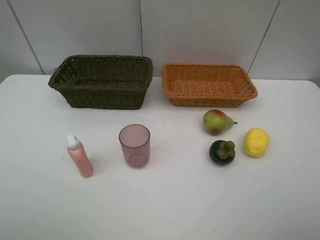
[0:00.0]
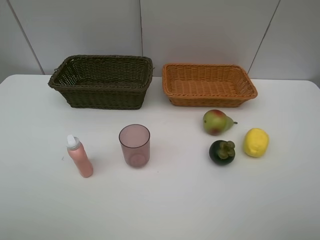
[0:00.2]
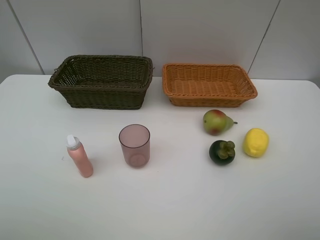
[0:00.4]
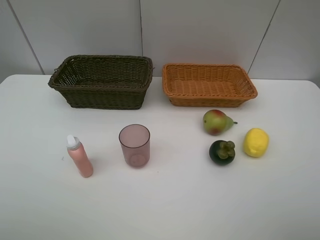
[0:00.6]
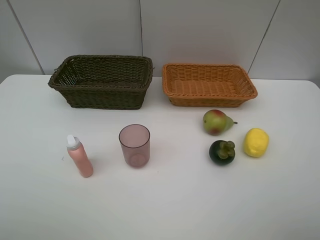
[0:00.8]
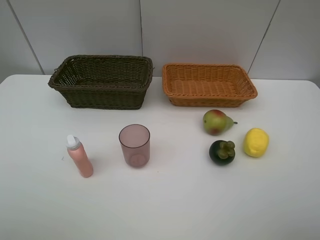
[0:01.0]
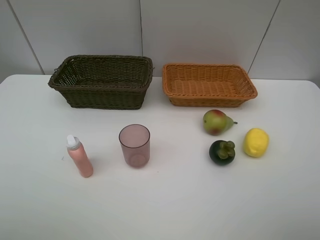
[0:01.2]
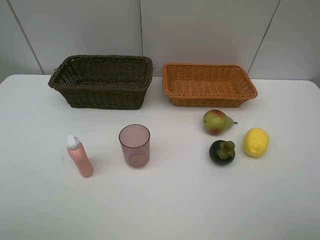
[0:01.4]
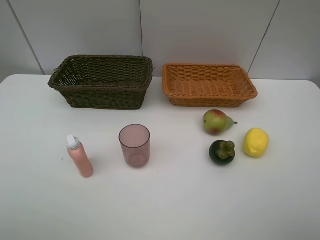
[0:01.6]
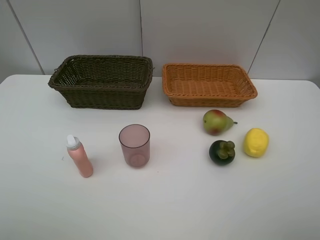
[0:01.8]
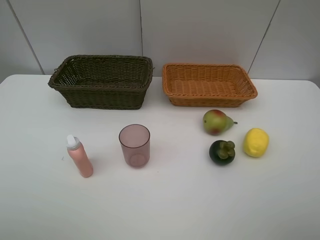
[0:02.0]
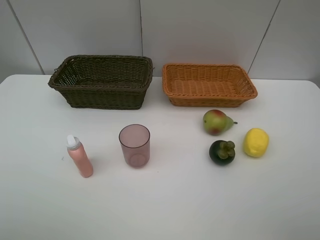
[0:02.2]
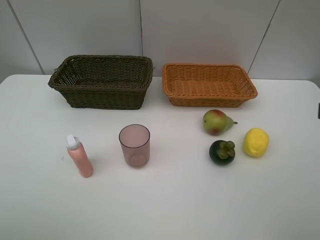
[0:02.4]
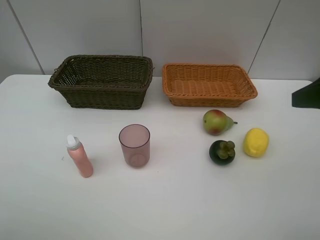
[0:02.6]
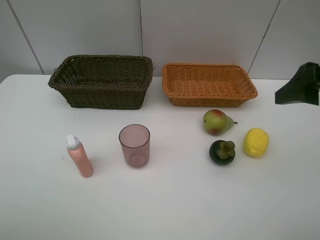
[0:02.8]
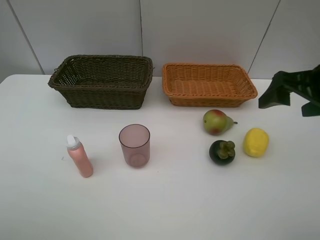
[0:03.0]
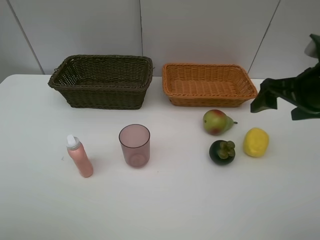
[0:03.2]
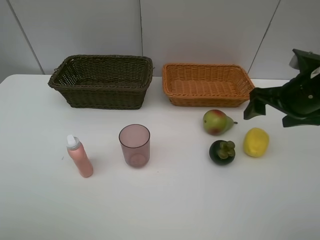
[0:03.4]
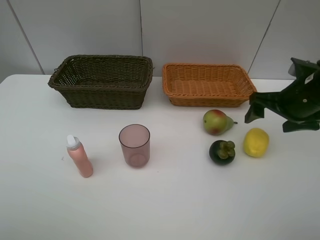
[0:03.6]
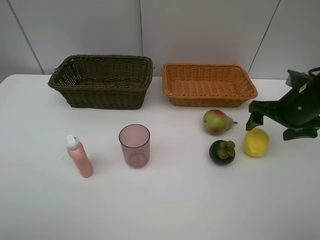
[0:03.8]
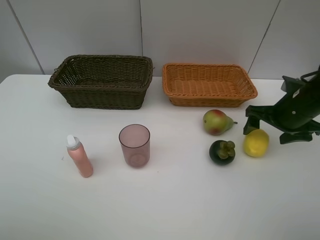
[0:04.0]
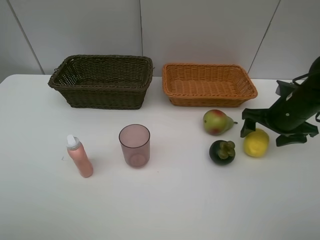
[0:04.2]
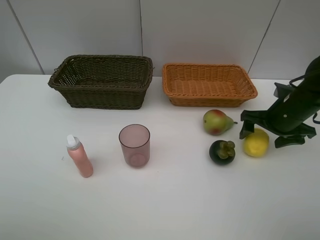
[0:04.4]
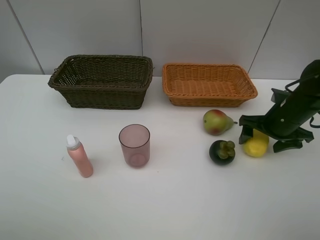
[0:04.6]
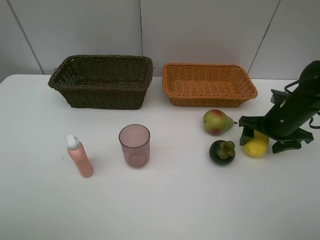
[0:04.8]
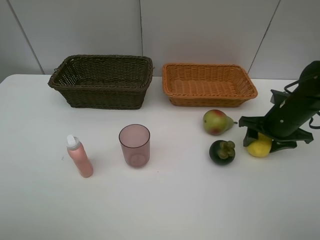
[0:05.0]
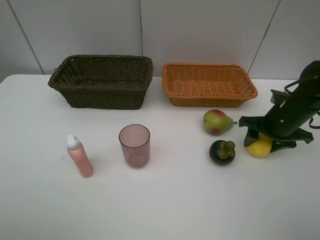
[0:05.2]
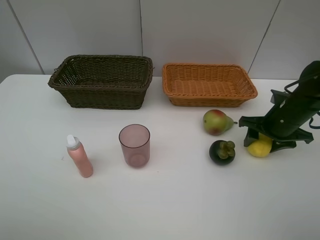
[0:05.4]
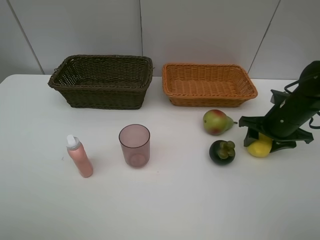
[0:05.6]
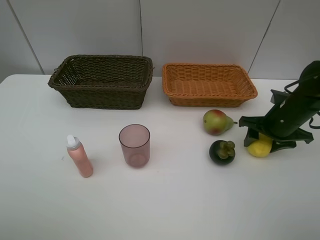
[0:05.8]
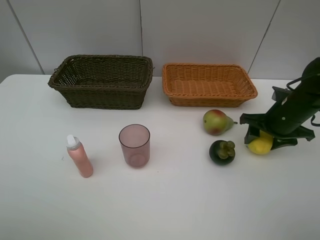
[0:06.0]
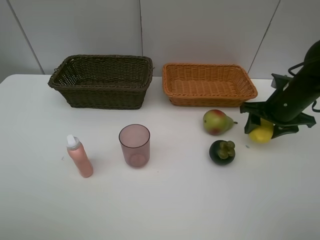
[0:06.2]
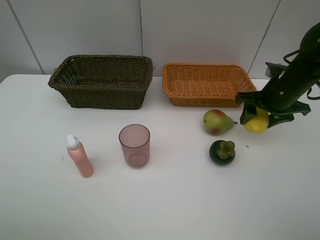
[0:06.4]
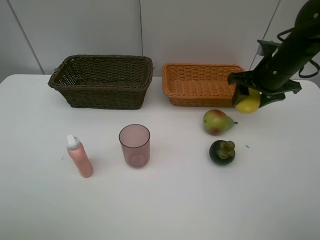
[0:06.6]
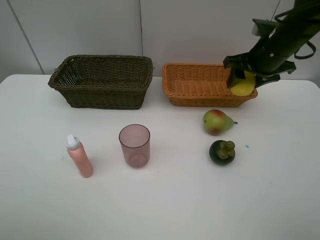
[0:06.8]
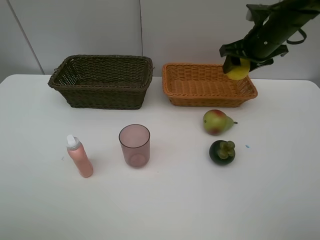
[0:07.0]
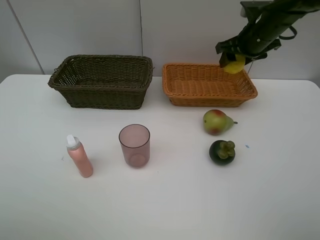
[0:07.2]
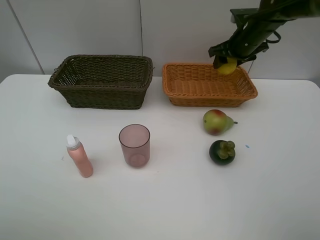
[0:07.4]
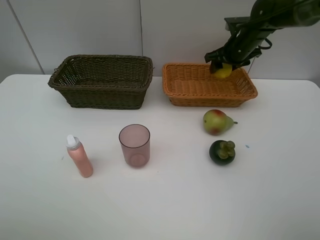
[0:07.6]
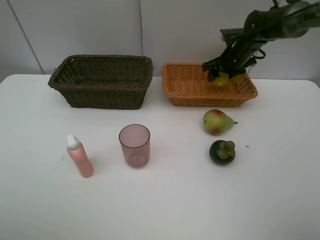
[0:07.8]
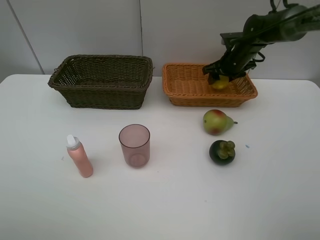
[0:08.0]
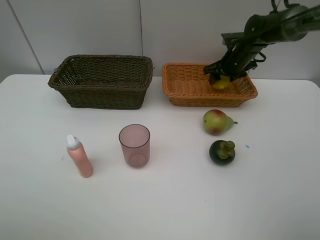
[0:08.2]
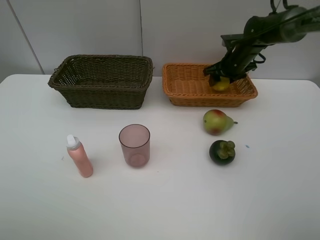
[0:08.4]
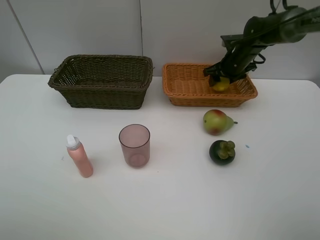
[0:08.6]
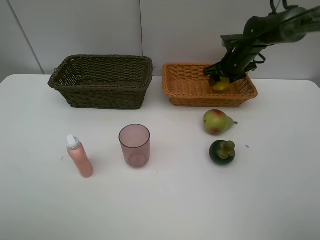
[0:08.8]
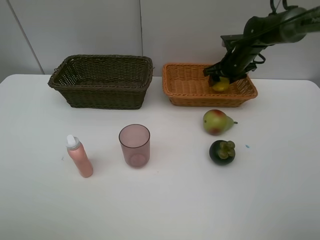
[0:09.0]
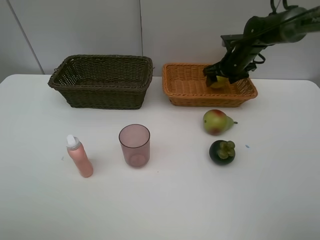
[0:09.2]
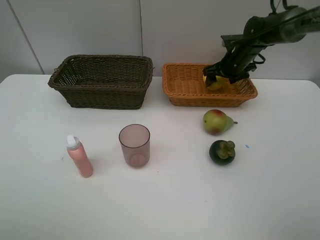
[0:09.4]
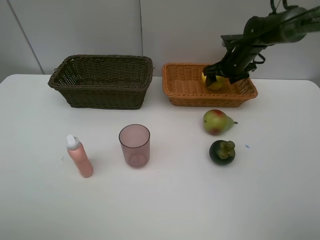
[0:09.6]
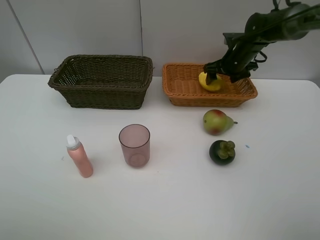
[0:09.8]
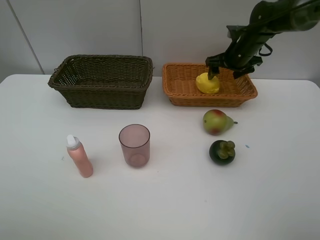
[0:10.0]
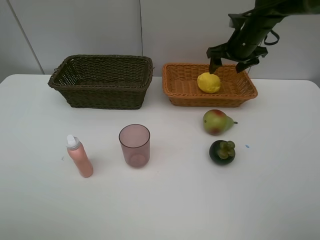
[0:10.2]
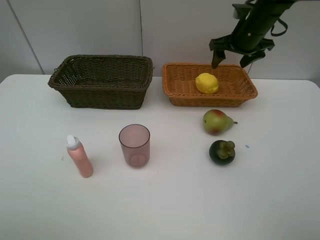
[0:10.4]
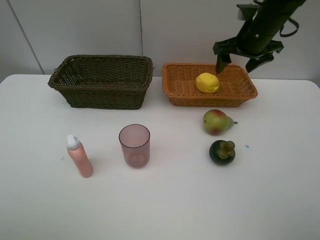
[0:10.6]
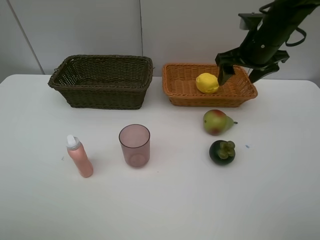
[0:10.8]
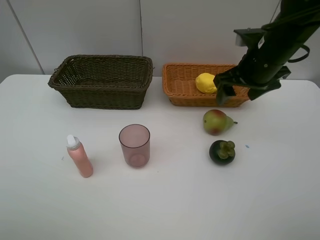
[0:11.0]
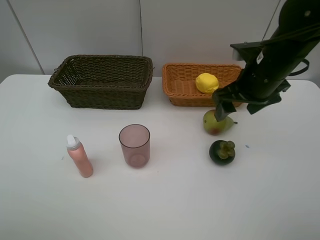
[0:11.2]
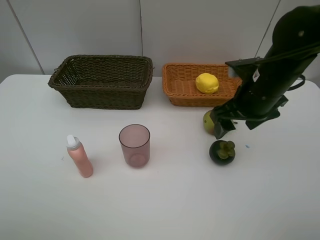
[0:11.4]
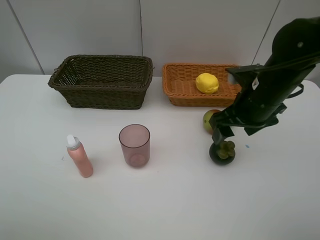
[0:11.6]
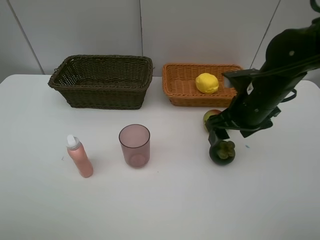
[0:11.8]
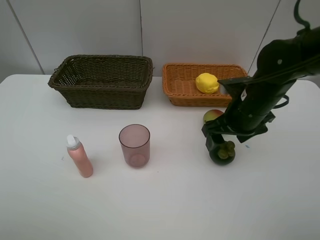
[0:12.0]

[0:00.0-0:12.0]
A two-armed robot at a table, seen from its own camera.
Task of the whole recording: Place multiple objects separately in different baskets.
Step, 0:00.0 to 0:06.0: Pick up the lemon with right gripper.
Step, 0:06.2 to 0:10.0: Place the lemon in the light basket with right gripper.
0:00.0 to 0:01.6: The two grippers keep their place.
0:01.6 to 0:03.0: The right gripper heads forward, covering some 20 cm.
0:03.0 to 0:04.4: The right gripper goes roughly 15 cm downward and forward.
0:04.4 to 0:06.0: The right gripper closes.
0:06.0 to 0:07.6: The right gripper heads forward, covering about 20 cm.
0:07.6 to 0:09.0: The grippers move only a little.
0:09.0 to 0:10.4: The right gripper travels upward by some 10 cm, and opens its fingers.
0:10.4 to 0:12.0: The right gripper goes some 20 cm backward and downward.

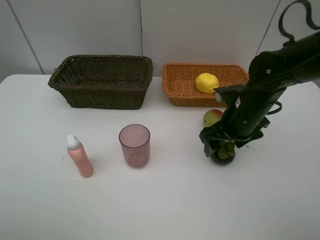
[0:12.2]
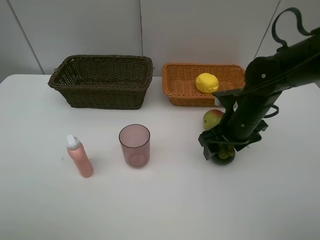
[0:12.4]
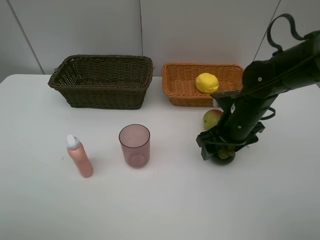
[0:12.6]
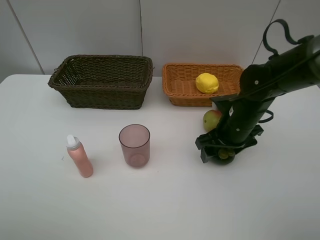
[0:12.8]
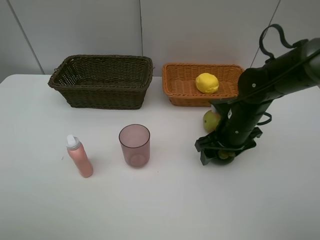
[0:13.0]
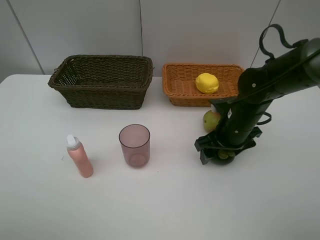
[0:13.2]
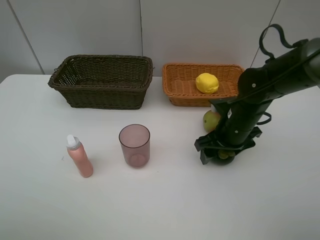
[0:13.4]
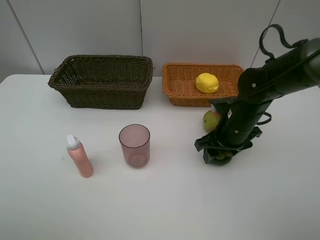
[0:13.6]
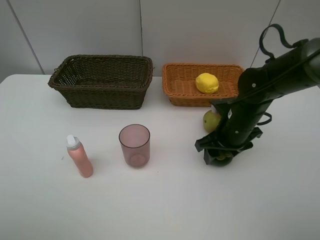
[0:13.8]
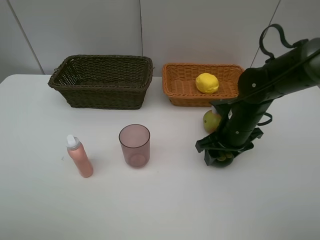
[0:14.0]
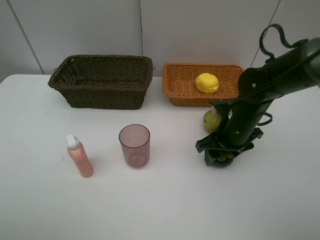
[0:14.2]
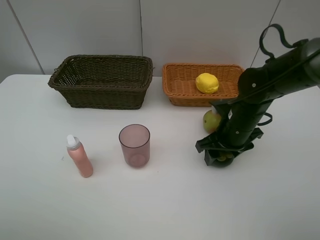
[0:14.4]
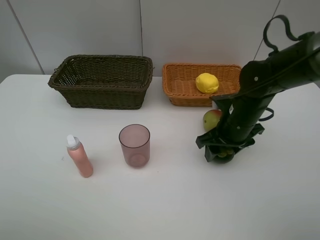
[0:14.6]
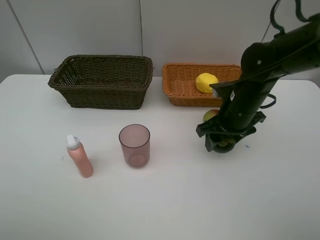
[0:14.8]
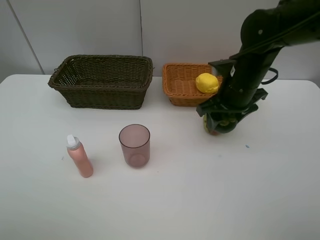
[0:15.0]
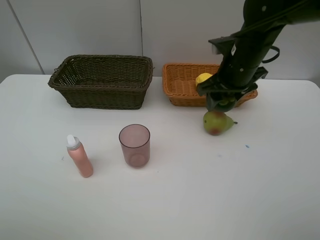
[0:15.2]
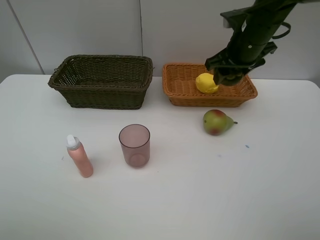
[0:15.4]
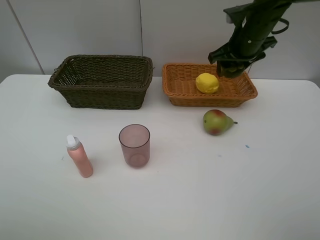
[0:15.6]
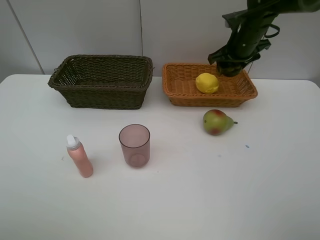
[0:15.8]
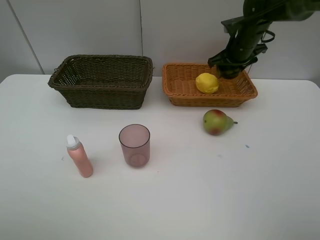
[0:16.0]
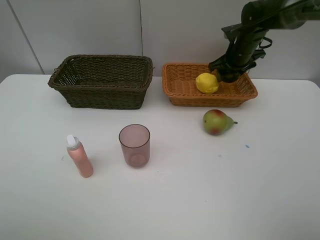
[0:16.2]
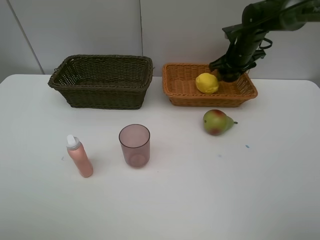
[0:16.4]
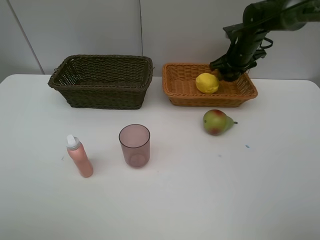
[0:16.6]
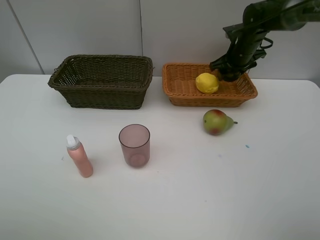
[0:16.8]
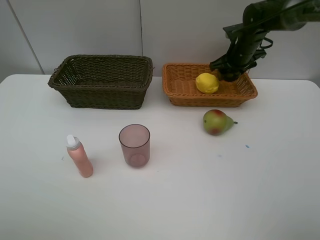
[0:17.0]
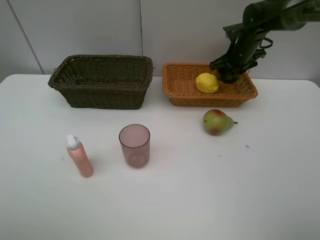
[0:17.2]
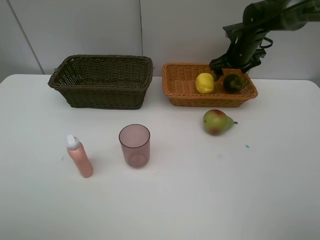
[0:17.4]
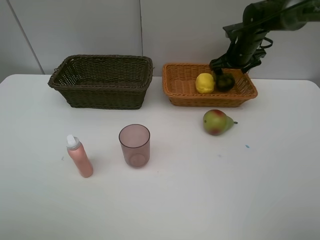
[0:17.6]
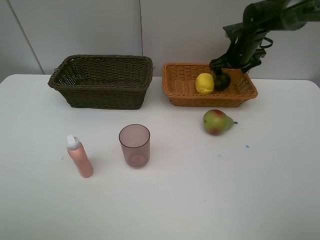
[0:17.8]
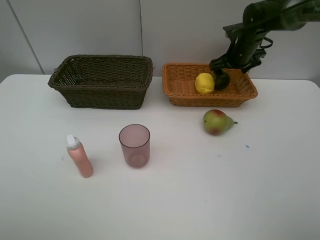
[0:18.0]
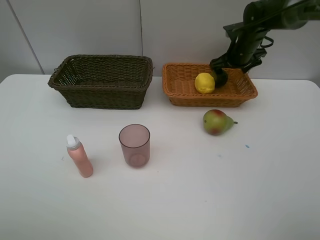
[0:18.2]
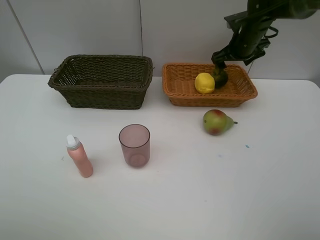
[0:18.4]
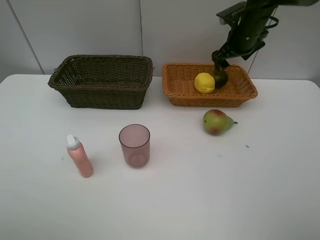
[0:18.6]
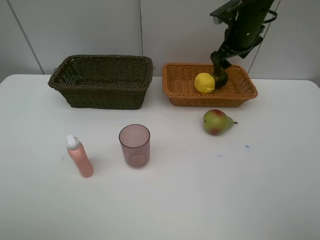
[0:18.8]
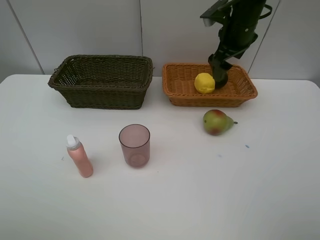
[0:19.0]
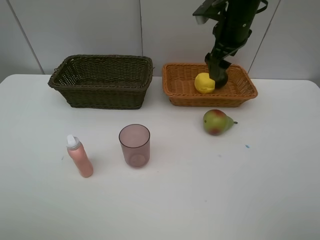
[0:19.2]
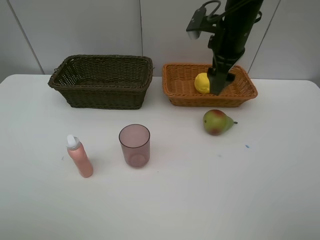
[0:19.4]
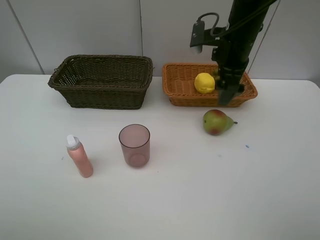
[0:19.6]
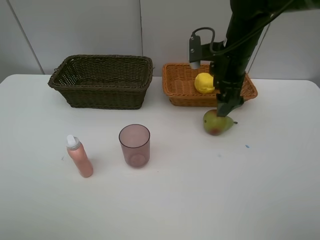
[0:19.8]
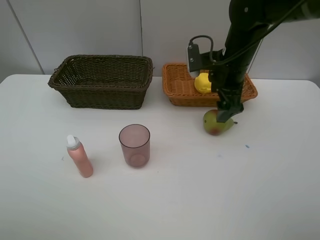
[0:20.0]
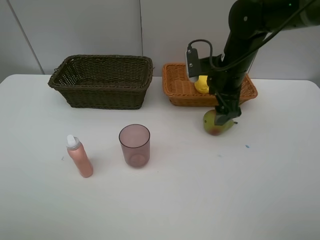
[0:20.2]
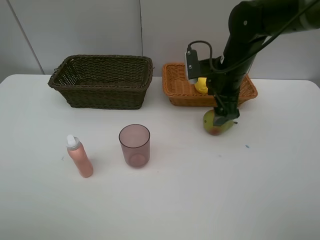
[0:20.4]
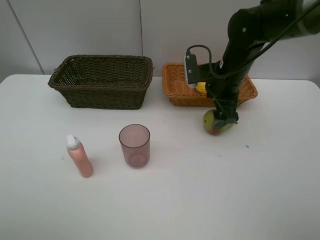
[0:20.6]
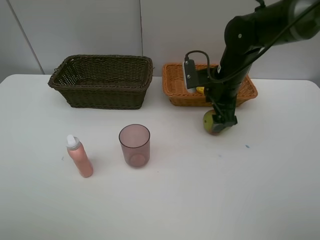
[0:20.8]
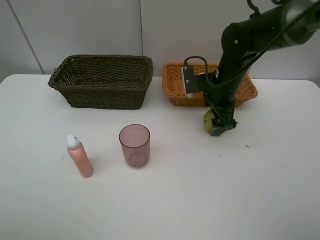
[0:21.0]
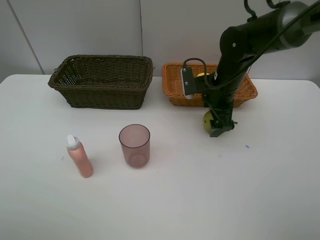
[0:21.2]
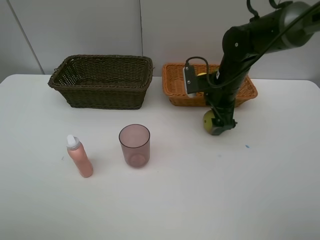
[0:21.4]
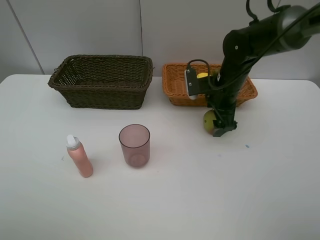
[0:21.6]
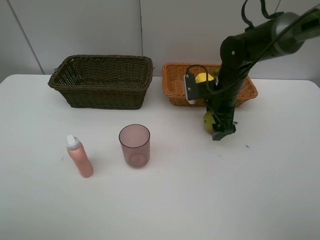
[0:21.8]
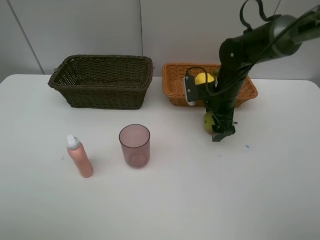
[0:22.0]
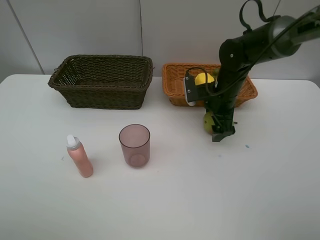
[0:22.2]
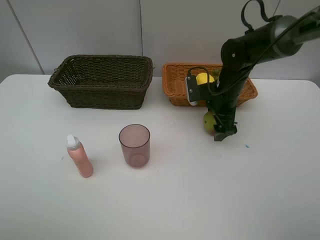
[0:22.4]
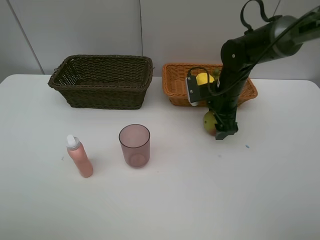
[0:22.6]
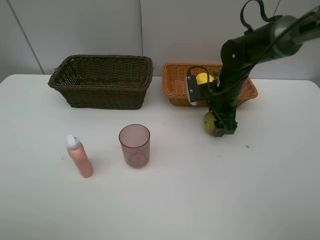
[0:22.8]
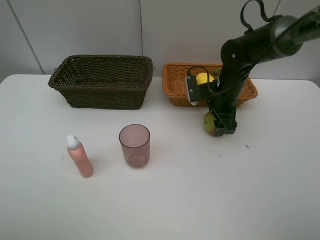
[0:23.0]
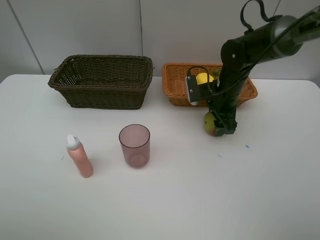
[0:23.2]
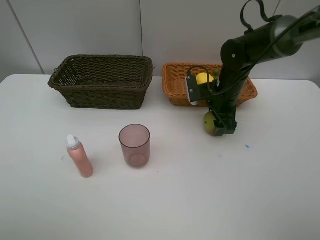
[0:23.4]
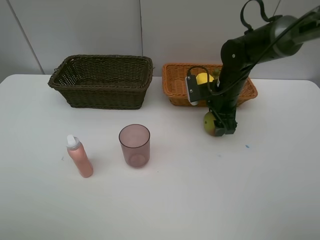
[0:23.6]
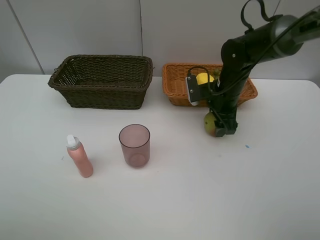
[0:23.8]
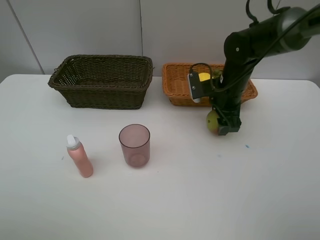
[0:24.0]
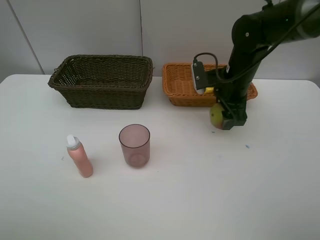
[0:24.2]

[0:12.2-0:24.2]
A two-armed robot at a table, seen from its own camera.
Task of the whole recording: Place multiple objects separately in different baskets.
Step, 0:12.2 to 0:14.6: Pick up the mangosteen with right gripper.
Step, 0:14.8 to 0:18.4: Place the mangosteen in the light basket with right gripper.
0:12.2 to 0:13.8: The right gripper closes its fingers.
0:13.8 to 0:15.2: The right gripper heads upward and forward, covering approximately 10 cm.
0:15.2 to 0:16.6: The right gripper is displaced forward and to the right by roughly 15 cm.
0:16.6 to 0:18.2: The right gripper opens its fingers.
0:18.2 to 0:19.8: The right gripper goes about 15 cm backward and to the left.
0:19.8 to 0:21.2: The right gripper is displaced downward by approximately 5 cm.
0:21.2 to 0:22.6: The grippers move only a little.
0:22.6 to 0:24.2: The right gripper closes.
